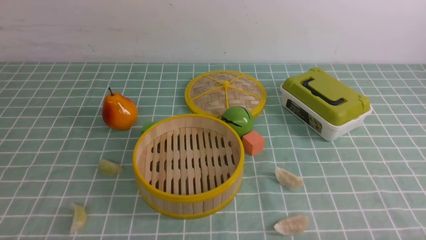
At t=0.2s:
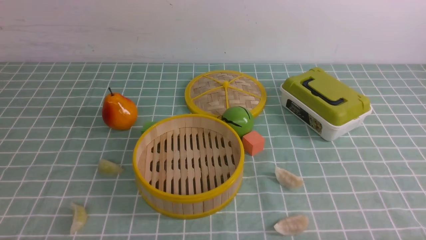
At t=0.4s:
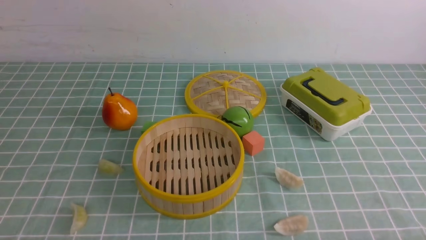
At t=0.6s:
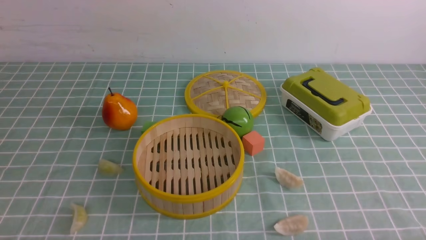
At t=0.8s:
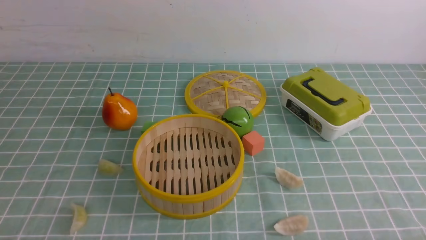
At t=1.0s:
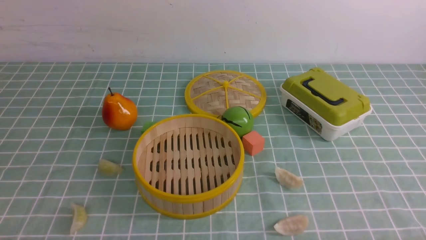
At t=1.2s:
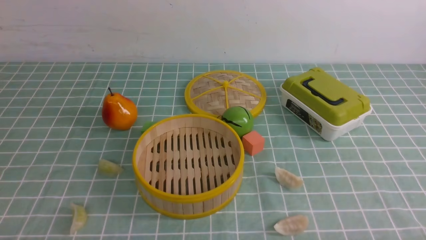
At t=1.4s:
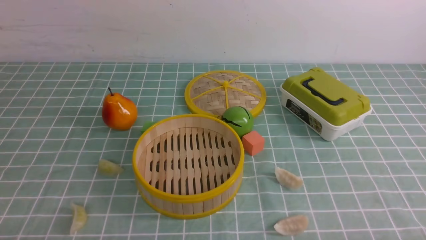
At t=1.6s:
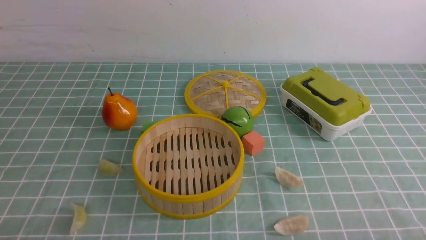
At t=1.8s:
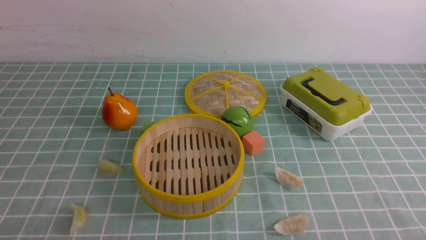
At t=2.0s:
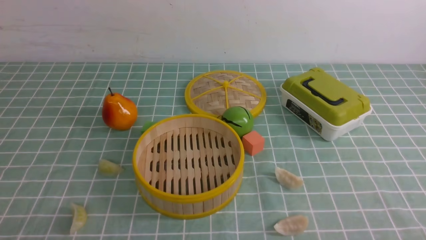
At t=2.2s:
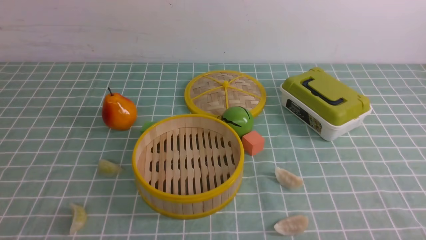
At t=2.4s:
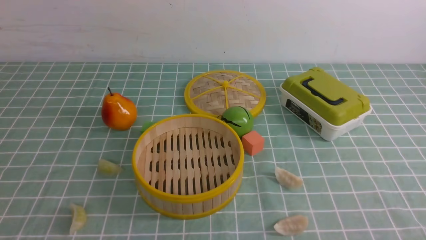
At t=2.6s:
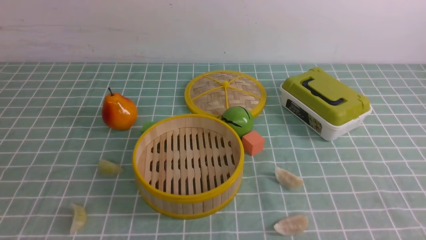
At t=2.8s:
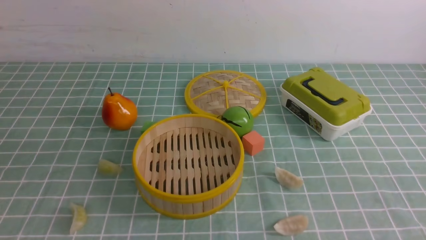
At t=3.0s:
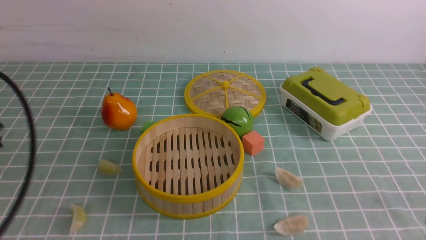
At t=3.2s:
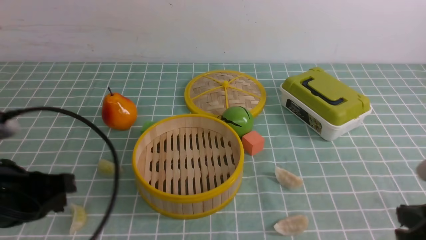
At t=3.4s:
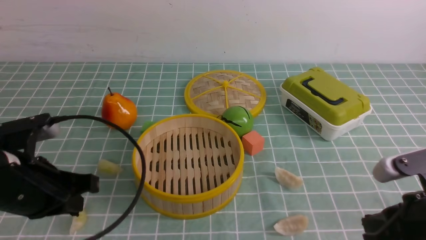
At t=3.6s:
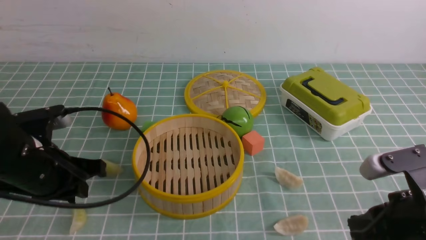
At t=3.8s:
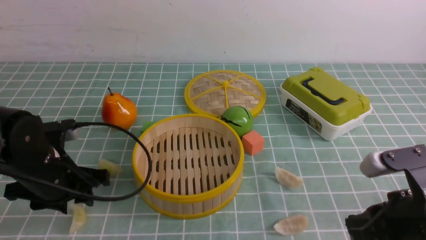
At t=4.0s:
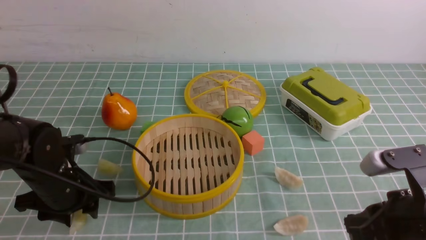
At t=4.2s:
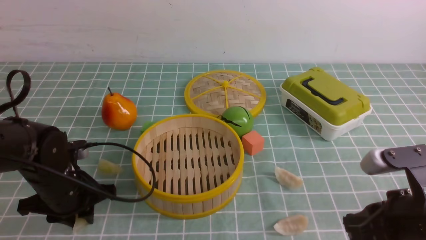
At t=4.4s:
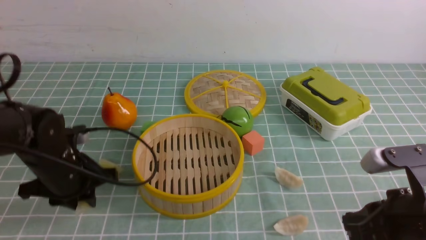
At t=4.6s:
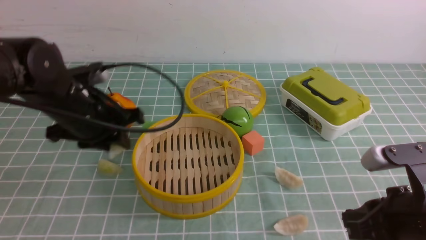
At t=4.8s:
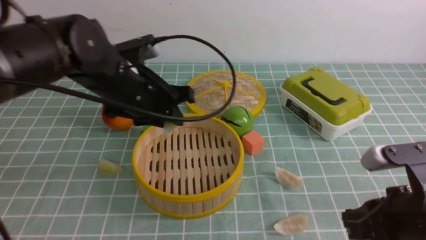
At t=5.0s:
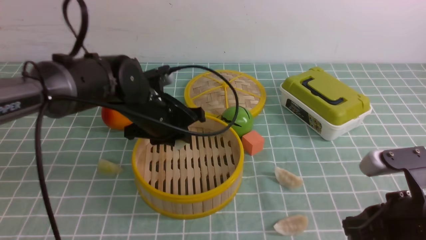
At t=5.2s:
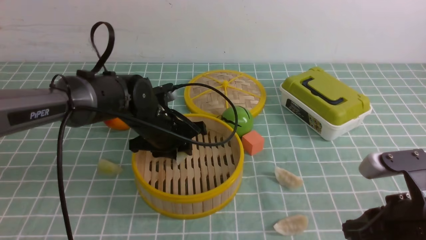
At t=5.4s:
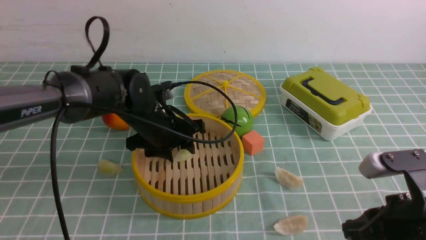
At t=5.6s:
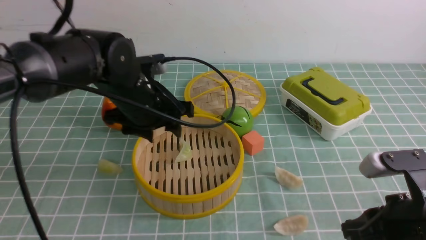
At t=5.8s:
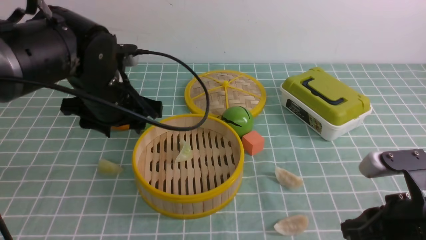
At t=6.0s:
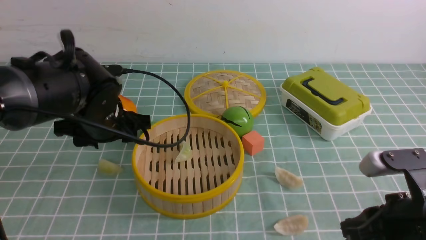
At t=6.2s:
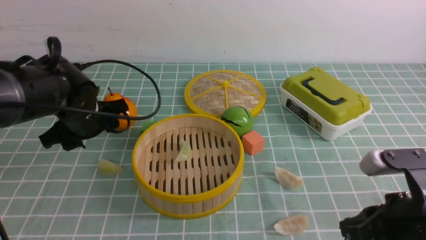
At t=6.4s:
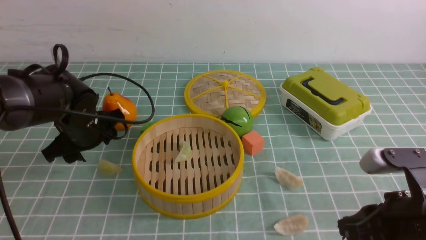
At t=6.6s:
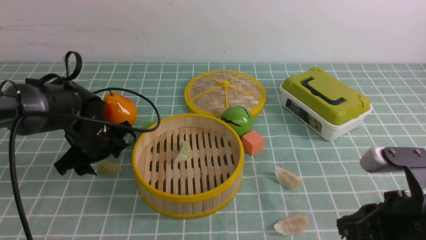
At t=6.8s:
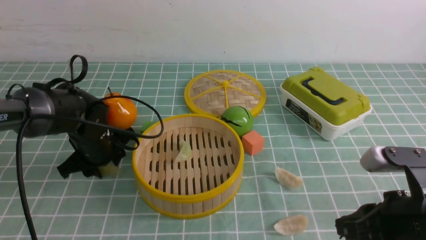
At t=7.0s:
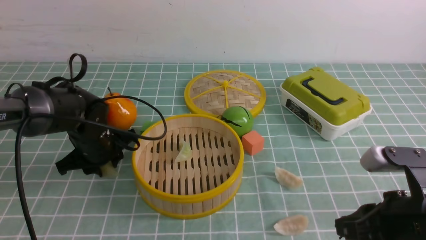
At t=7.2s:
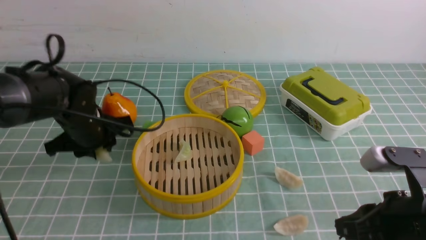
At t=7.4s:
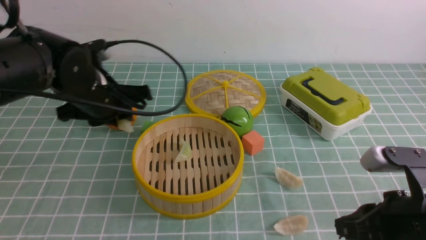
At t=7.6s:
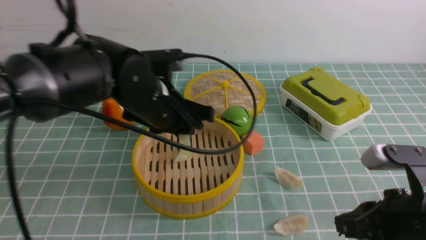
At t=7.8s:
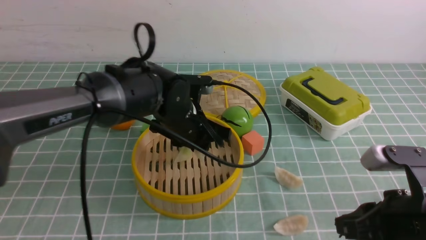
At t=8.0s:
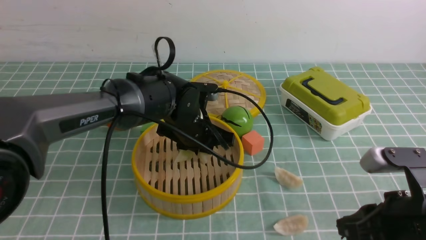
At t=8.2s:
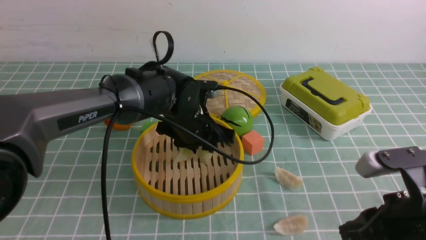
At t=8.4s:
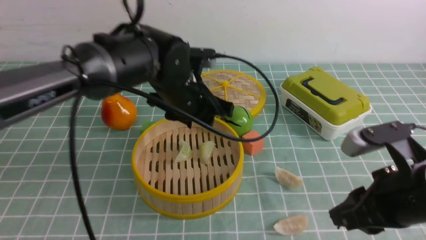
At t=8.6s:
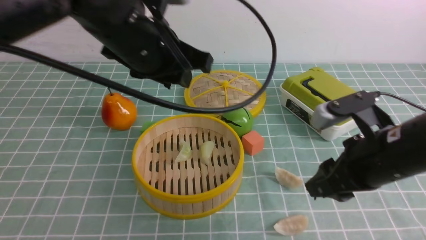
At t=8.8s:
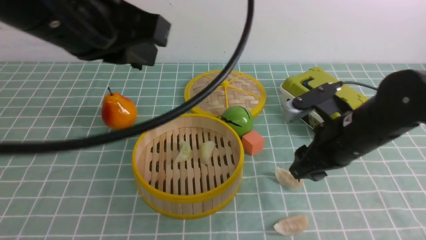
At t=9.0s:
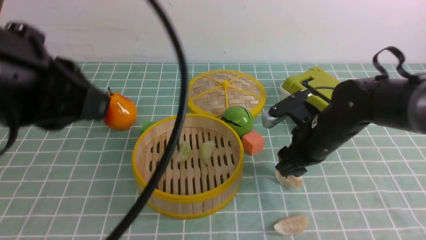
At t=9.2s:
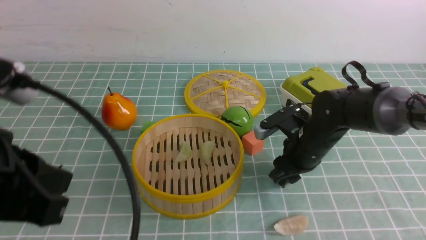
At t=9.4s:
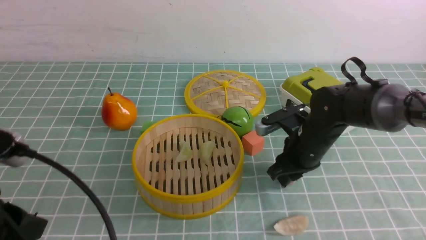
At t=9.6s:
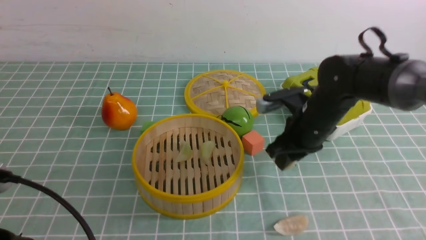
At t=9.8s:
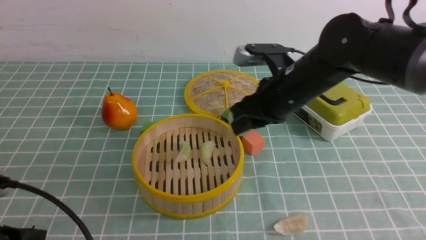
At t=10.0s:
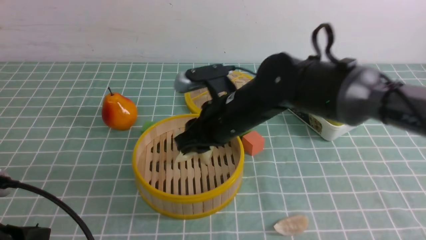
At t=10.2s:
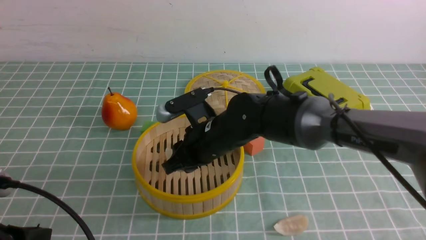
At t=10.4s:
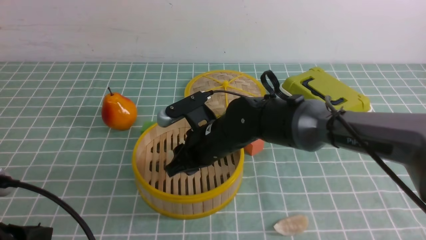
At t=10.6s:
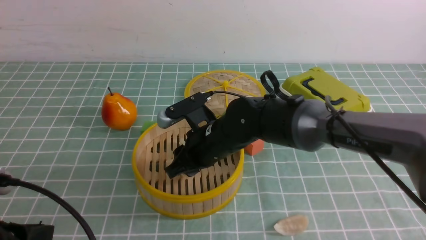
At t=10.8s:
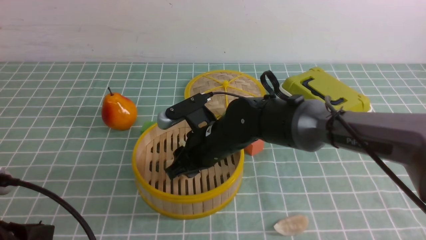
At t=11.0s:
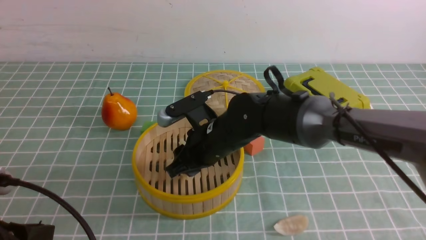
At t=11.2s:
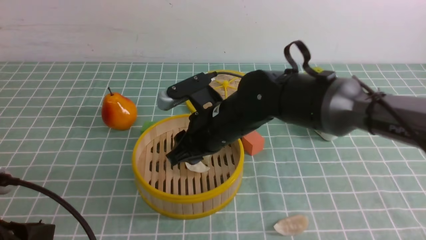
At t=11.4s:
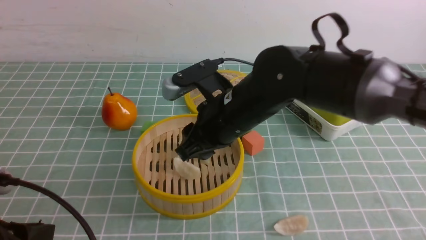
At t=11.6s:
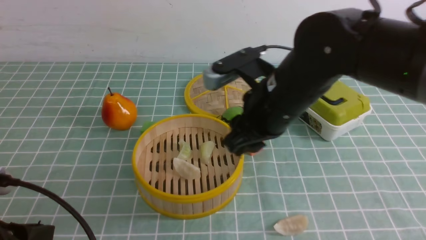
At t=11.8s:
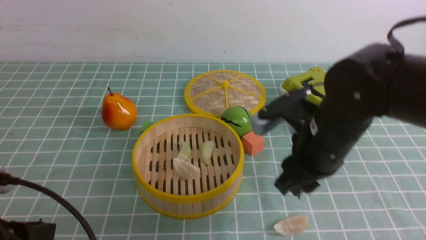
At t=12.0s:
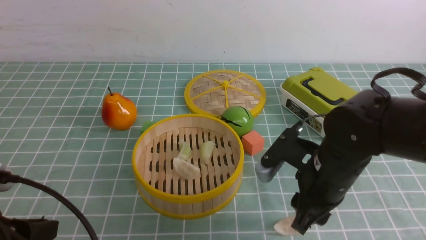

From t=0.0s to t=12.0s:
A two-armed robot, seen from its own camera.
Task of the whole recording: put the dumplings into the steamer on the table with the blue tablecloth.
Step, from t=0.0s to t=4.2s: use the left arm to grab a dumpling.
Step, from t=4.4s to t=5.4s: use the left arm to put the dumpling into the steamer.
Step, from t=5.8s to t=6.8s: use the left arm to grab a dumpling.
Step, from t=7.0s to t=8.2s: use the left arm to put the dumpling into the steamer.
Step, from t=8.6s to t=9.4s: use the right arm to grab a dumpling.
Step, from t=9.6s to t=11.2s: use the right arm to put the dumpling into the steamer.
From t=1.6s to t=3.0s: The left gripper moves upward and forward, some 15 cm, and closes its fingers.
From t=3.0s to t=4.4s: The left gripper goes about 20 cm forward and downward, and opens up, while the right gripper travels to the left by roughly 5 cm.
From t=4.4s to t=6.0s: The left gripper reaches approximately 10 cm to the right, then returns, and opens up.
From t=6.0s to t=7.6s: The left gripper shifts approximately 10 cm to the right, and closes.
From t=7.6s to t=9.0s: The right gripper is displaced forward by roughly 20 cm, and opens. The left gripper moves backward, upward and to the left, approximately 25 cm.
From t=9.0s to t=10.4s: The left gripper heads downward and backward, covering approximately 15 cm; the right gripper moves to the left, approximately 15 cm.
From t=10.4s to t=12.0s: The right gripper travels to the right and backward by approximately 15 cm.

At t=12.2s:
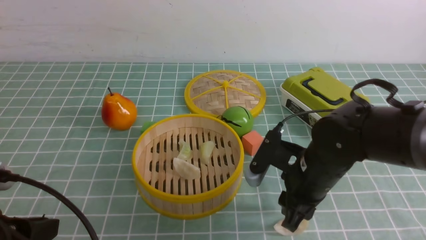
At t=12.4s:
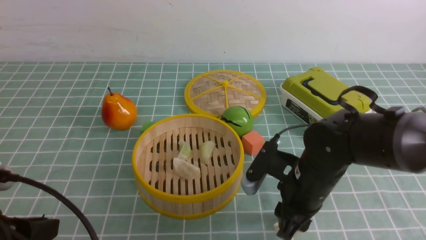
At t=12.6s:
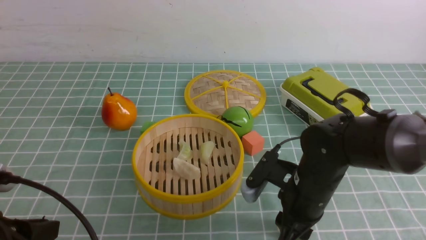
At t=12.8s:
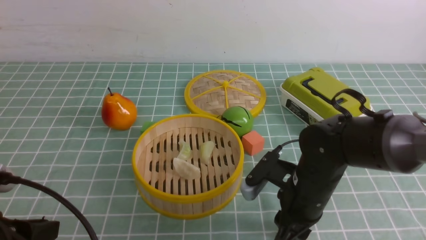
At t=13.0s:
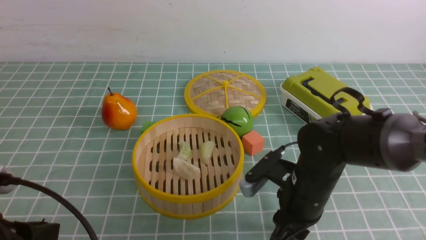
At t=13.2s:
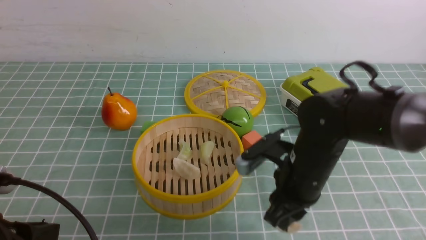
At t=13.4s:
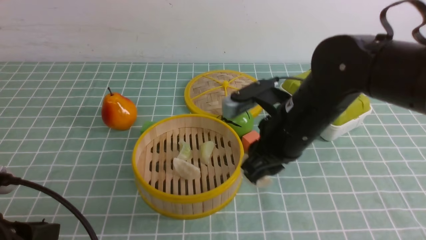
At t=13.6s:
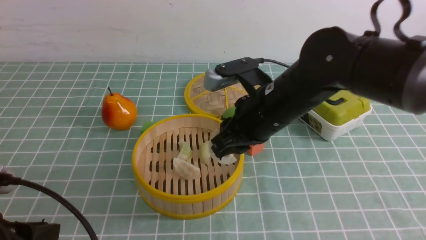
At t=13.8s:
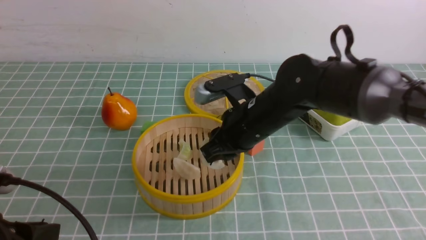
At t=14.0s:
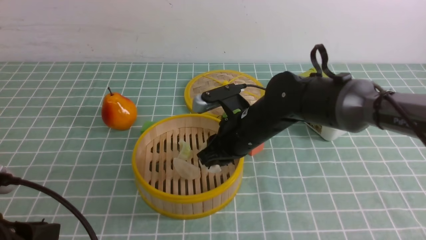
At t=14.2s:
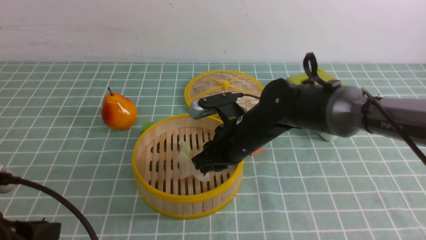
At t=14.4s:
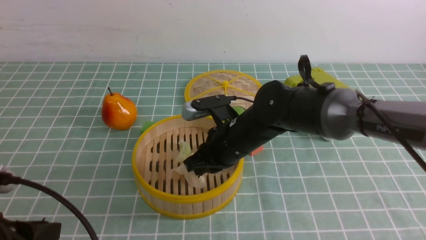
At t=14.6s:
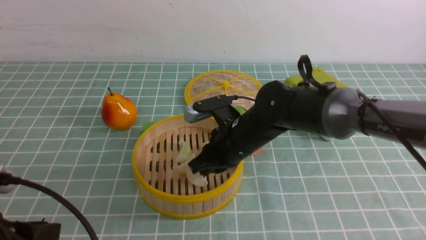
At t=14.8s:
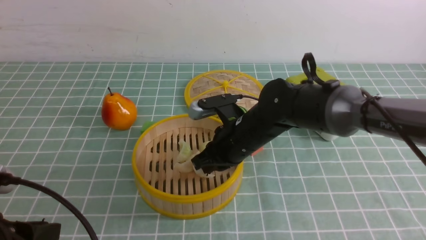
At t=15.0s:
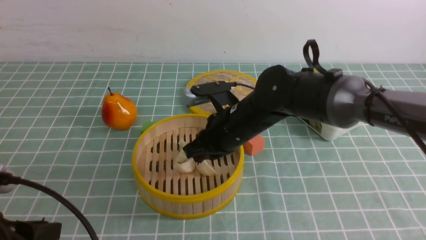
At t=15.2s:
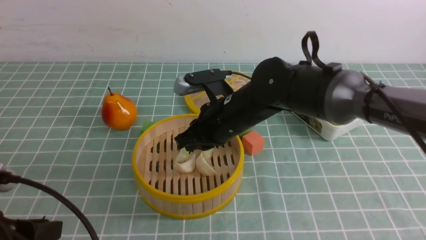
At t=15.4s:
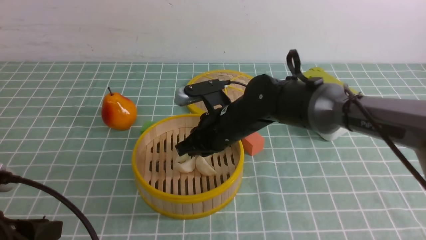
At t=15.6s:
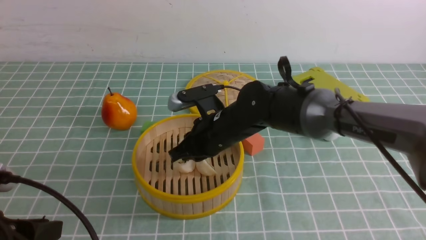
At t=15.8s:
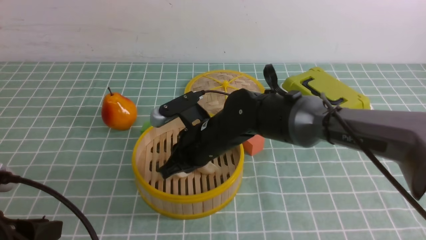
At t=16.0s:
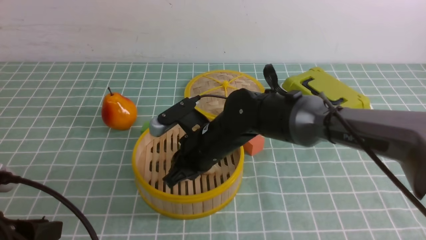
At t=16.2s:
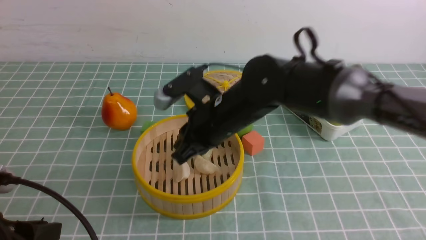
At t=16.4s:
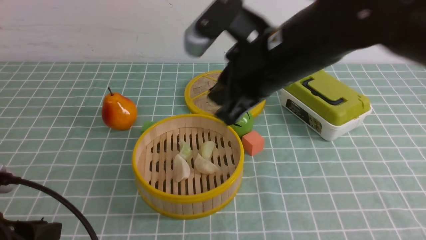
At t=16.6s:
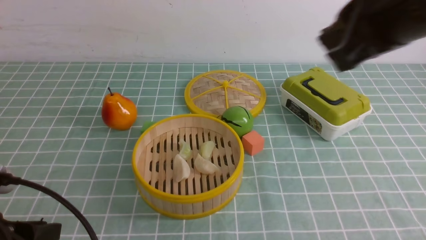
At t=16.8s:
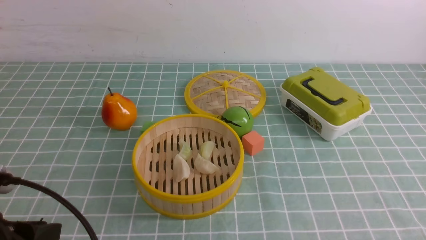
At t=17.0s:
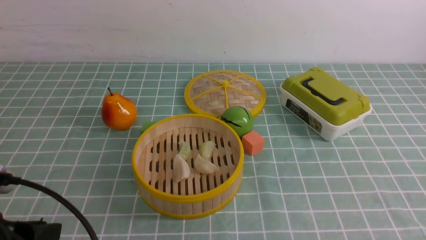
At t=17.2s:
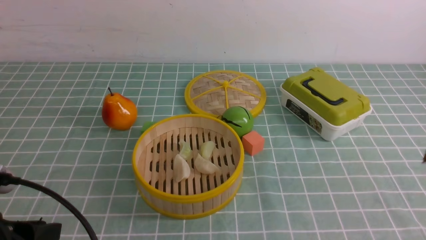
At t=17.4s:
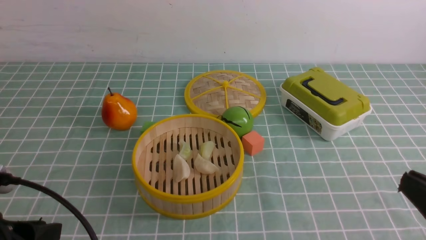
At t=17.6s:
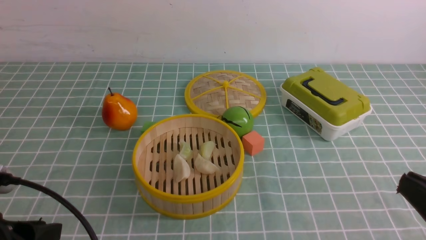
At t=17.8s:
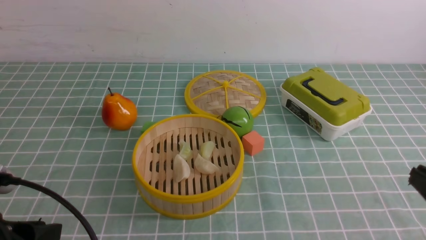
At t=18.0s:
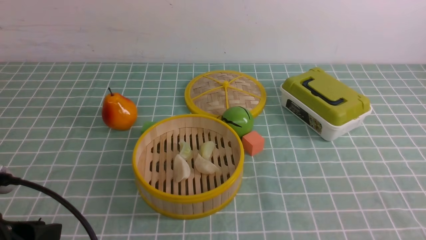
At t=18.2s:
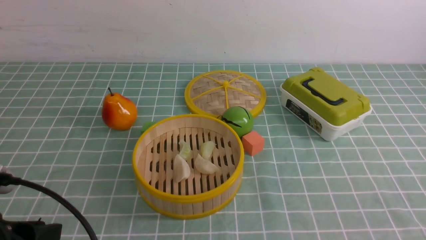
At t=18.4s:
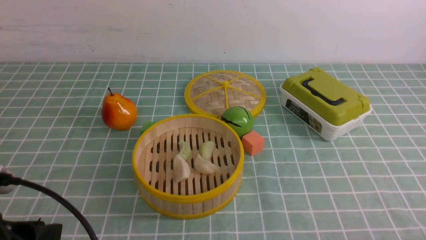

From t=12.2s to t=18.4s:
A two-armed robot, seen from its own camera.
Task of the whole recording: put the dumplings into the steamer on the table with the blue tablecloth.
Step, from t=13.0s to t=14.8s: use the right arm to put the dumpling into the steamer.
From t=12.2s to t=13.8s: The right gripper is displaced to the left and forward by approximately 10 cm.
From t=13.8s to t=15.4s: The right gripper changes place by some 5 cm, and closes.
From t=15.4s to t=16.8s: The right gripper is displaced upward, backward and to the right by approximately 40 cm.
